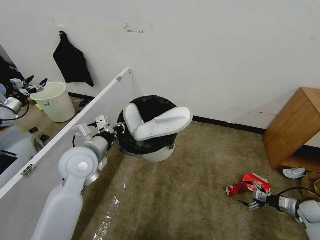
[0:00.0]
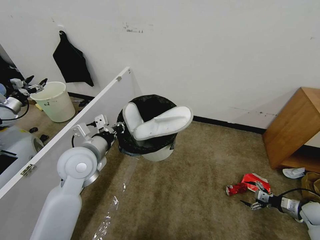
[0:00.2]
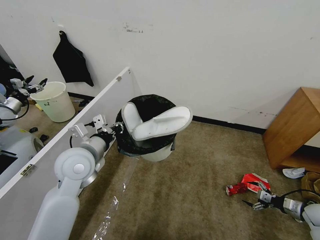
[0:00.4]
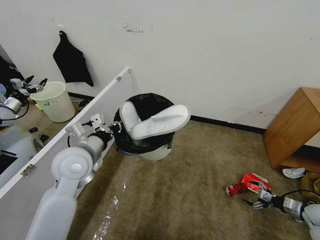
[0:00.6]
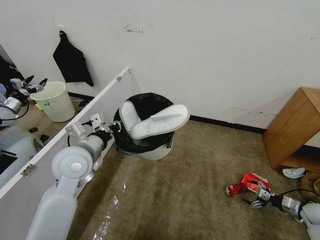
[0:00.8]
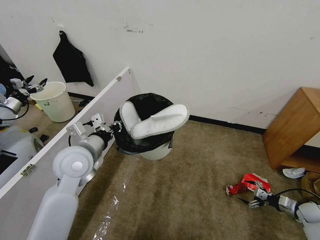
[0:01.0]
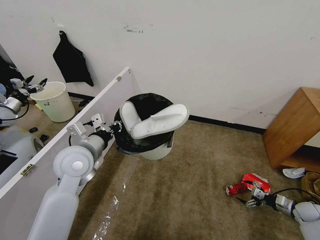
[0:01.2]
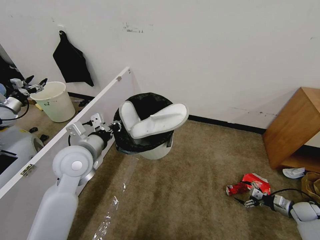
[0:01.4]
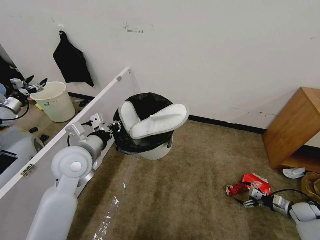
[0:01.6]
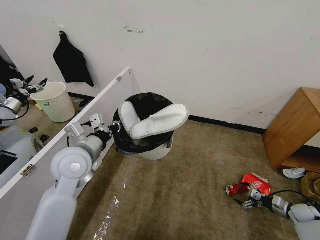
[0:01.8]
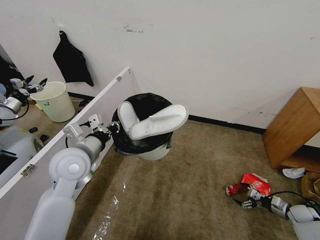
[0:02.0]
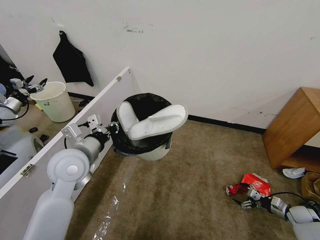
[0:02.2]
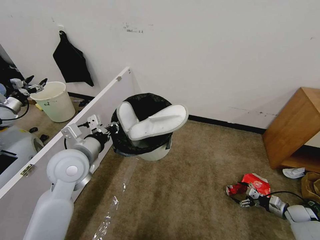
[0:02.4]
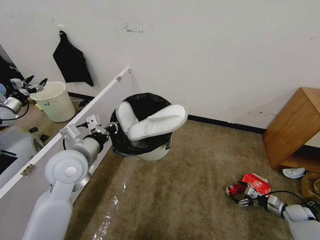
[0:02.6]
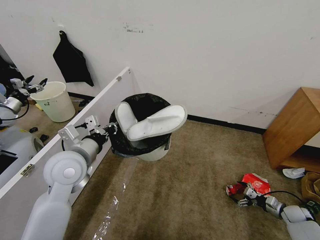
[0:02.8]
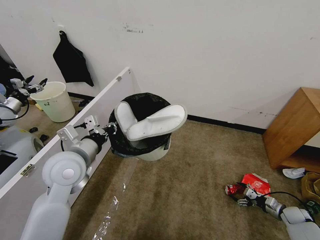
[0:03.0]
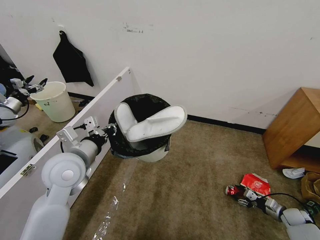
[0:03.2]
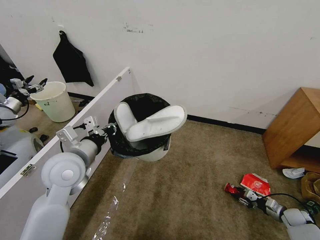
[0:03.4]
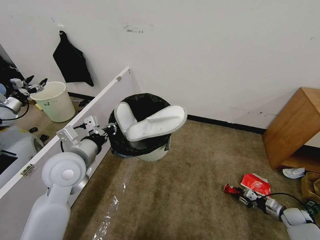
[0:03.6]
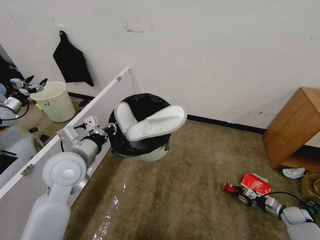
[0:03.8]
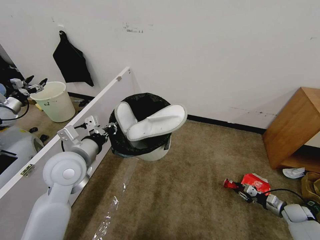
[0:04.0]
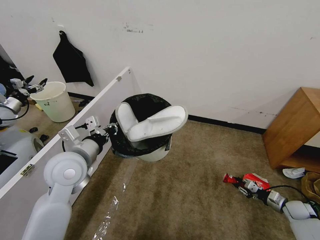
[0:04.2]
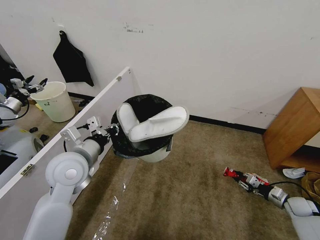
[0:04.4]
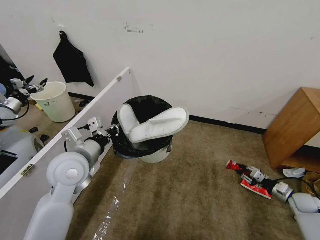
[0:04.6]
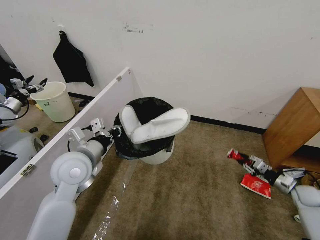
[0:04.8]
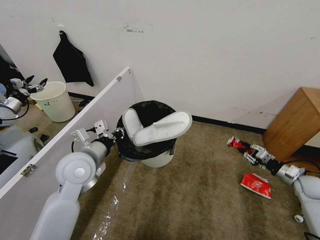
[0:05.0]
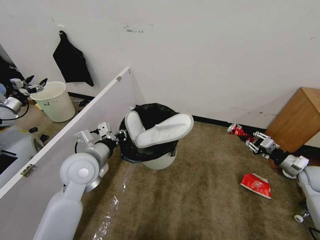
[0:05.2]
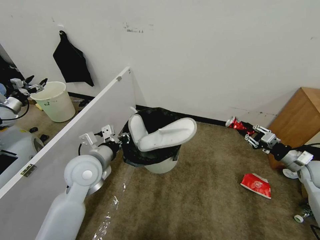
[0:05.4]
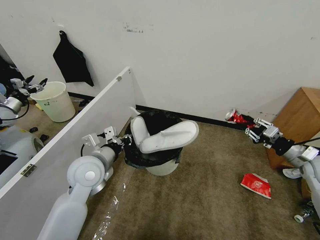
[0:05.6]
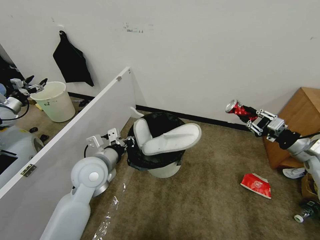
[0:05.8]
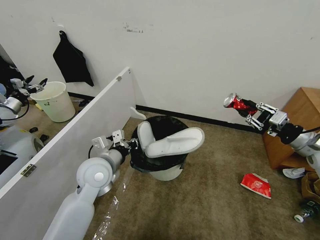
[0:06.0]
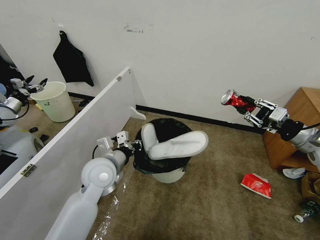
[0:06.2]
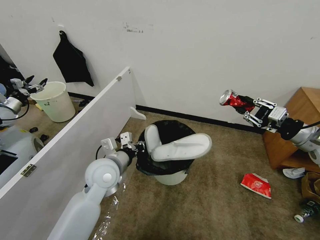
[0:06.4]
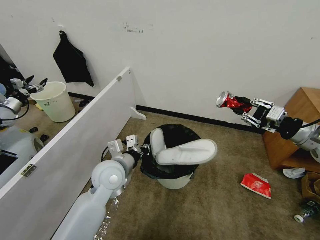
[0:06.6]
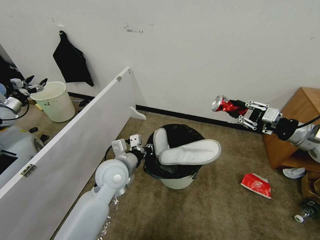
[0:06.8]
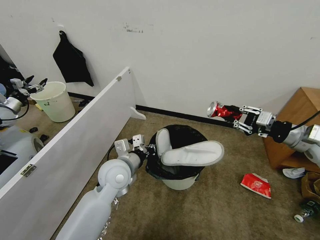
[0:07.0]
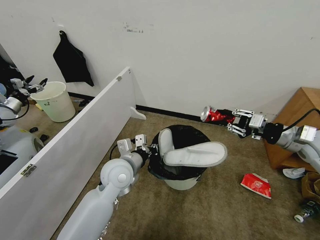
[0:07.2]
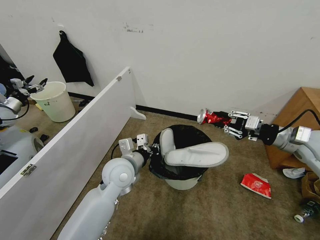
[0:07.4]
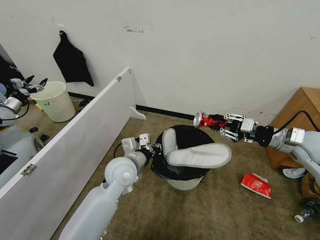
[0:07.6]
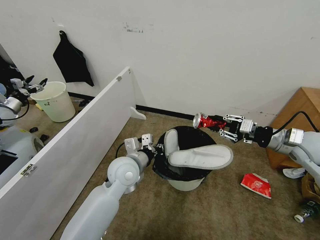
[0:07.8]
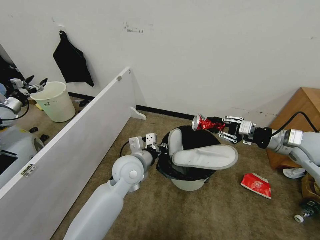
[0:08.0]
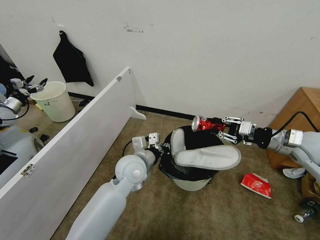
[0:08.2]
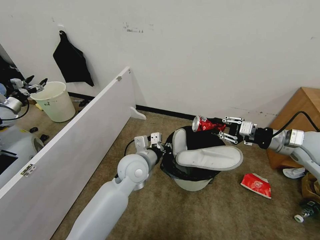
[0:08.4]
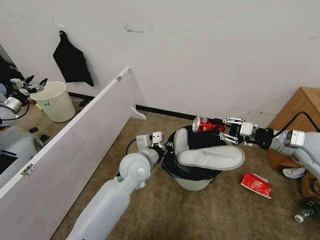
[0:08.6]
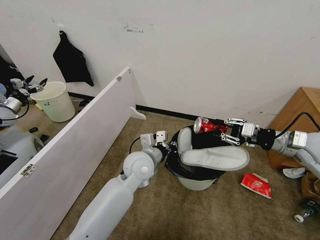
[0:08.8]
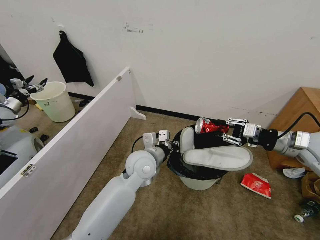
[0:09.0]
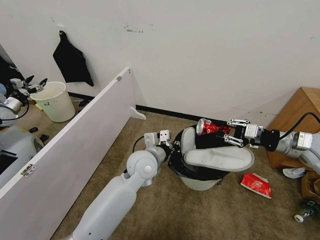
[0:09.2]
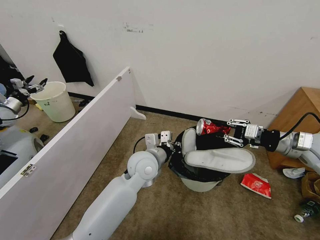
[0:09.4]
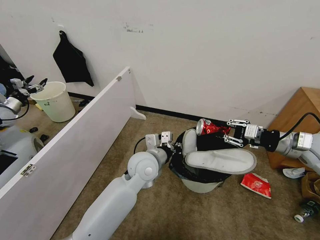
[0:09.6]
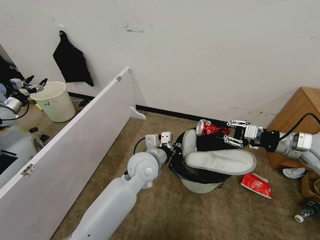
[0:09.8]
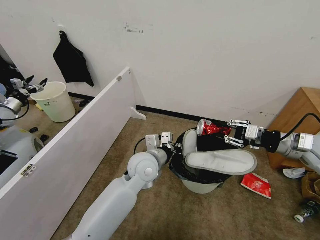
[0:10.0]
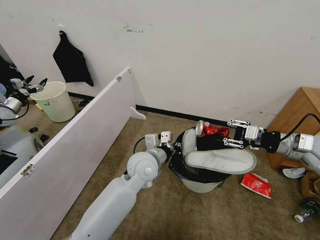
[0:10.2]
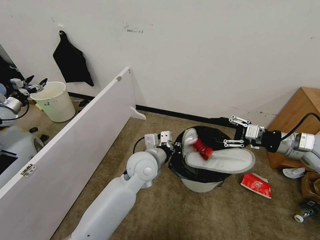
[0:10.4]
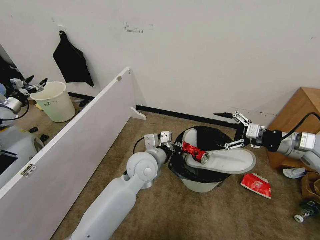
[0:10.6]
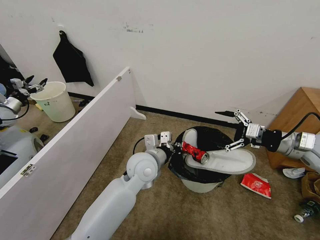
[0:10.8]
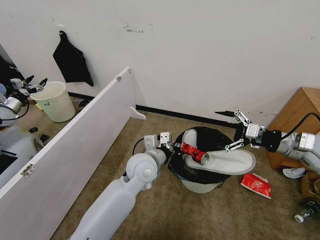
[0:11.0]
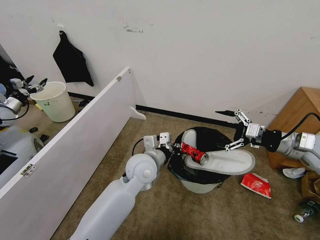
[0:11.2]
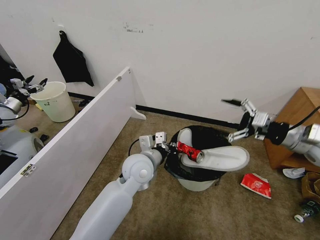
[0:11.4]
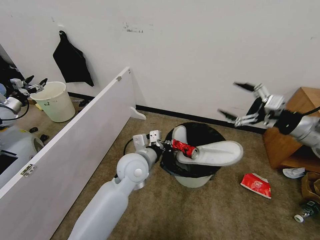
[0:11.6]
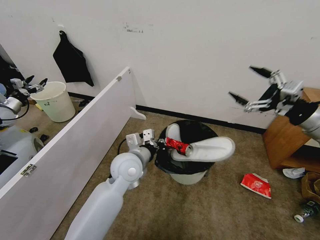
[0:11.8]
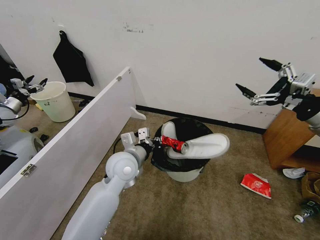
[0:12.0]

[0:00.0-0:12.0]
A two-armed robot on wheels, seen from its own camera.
Task of the whole recording: Pick up the trash bin, then pick up the garbage from the floor and place it into the trash bin.
0:00.0 to 0:01.6: There are only small adjustments of the grippers.
0:01.6 to 0:03.0: The grippers make only small movements.
0:03.0 to 0:04.4: The right gripper is displaced upward by roughly 5 cm, and closes.
0:04.4 to 0:06.0: The left gripper shifts by about 5 cm. Meanwhile the right gripper travels upward by about 30 cm.
0:06.0 to 0:07.6: The left gripper shifts about 5 cm to the right; the right gripper is displaced to the left by approximately 5 cm.
0:07.6 to 0:09.0: The left gripper shifts some 5 cm to the right.
0:09.0 to 0:10.4: The right gripper opens.
0:10.4 to 0:12.0: The right gripper travels upward by some 5 cm, and opens its fingers. Meanwhile the left gripper goes approximately 5 cm to the left.

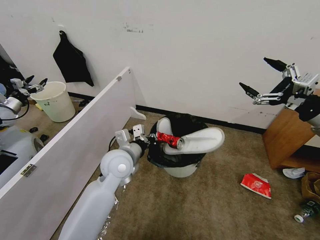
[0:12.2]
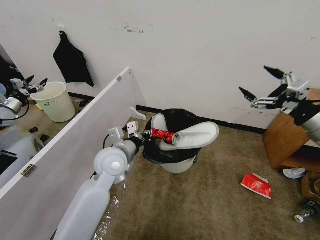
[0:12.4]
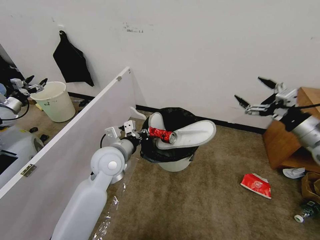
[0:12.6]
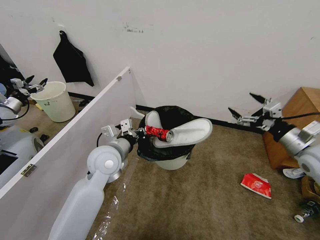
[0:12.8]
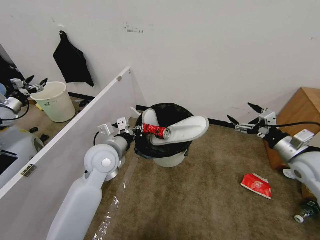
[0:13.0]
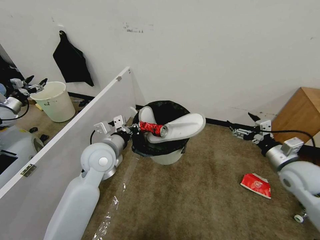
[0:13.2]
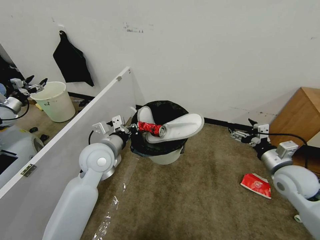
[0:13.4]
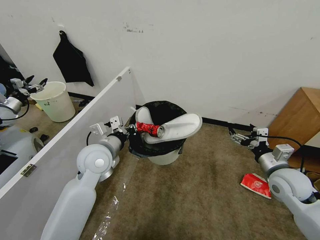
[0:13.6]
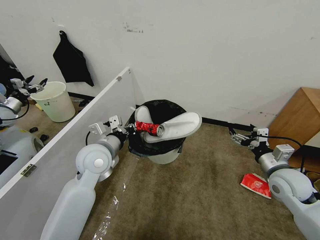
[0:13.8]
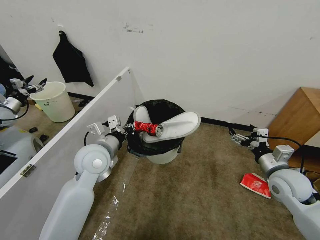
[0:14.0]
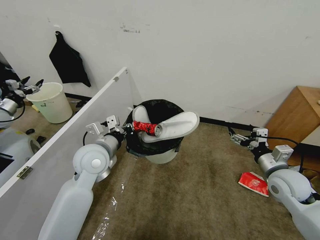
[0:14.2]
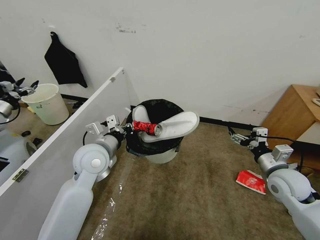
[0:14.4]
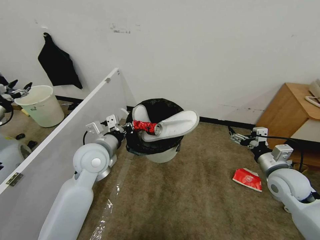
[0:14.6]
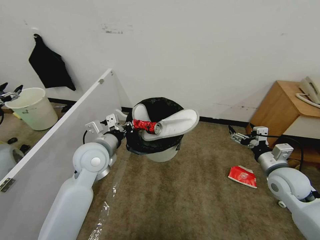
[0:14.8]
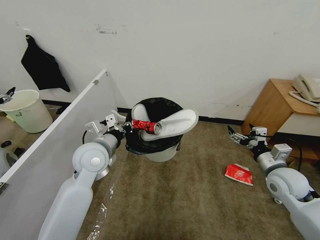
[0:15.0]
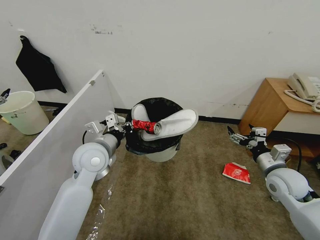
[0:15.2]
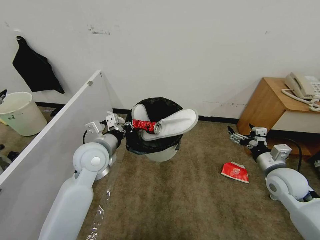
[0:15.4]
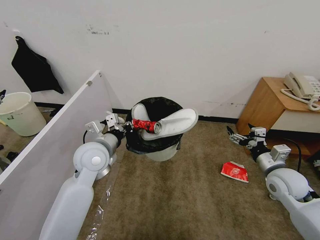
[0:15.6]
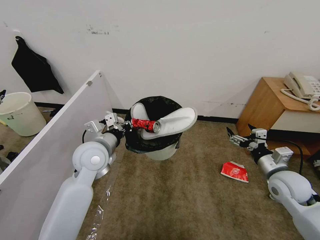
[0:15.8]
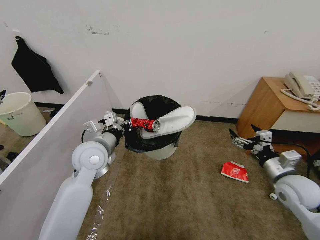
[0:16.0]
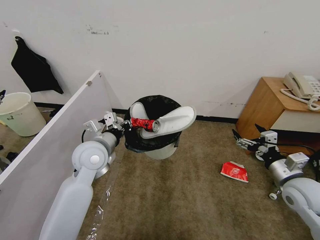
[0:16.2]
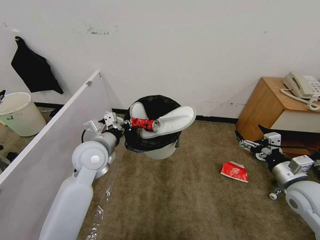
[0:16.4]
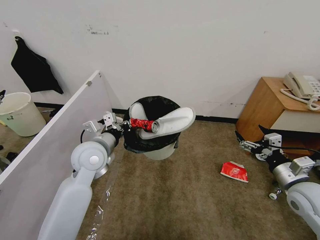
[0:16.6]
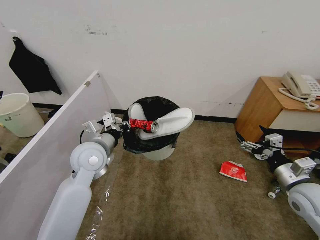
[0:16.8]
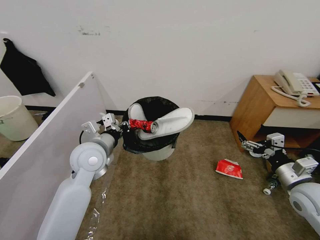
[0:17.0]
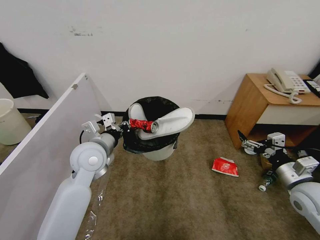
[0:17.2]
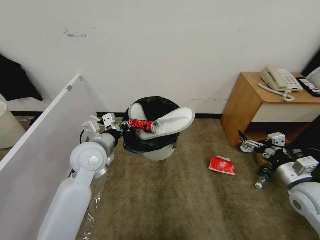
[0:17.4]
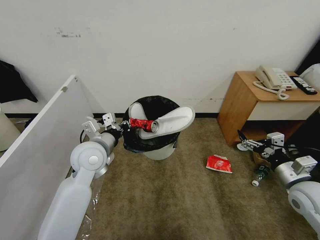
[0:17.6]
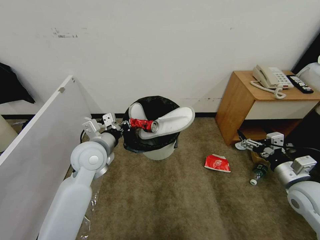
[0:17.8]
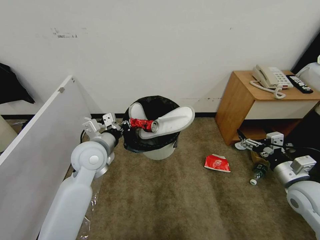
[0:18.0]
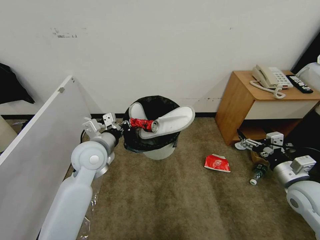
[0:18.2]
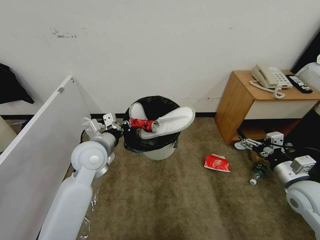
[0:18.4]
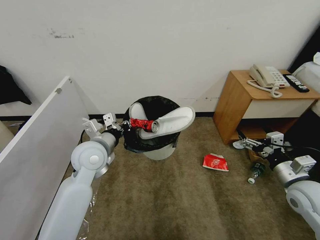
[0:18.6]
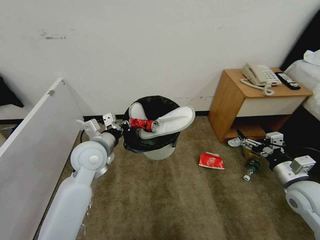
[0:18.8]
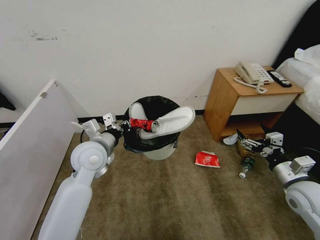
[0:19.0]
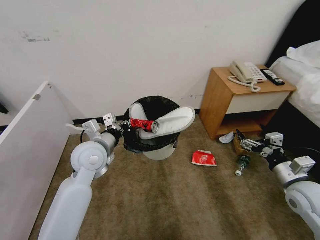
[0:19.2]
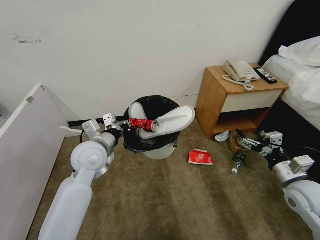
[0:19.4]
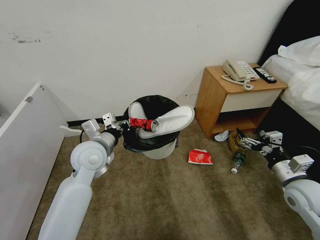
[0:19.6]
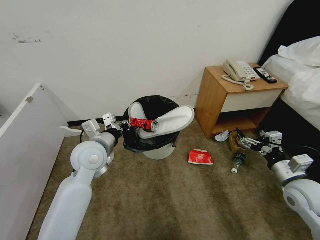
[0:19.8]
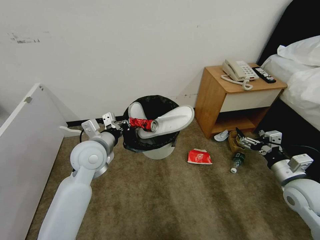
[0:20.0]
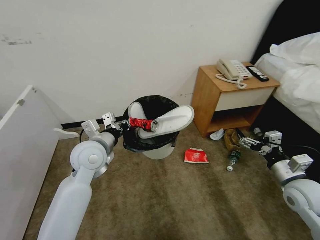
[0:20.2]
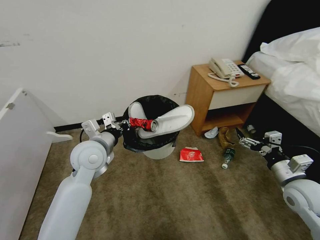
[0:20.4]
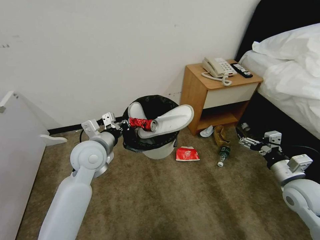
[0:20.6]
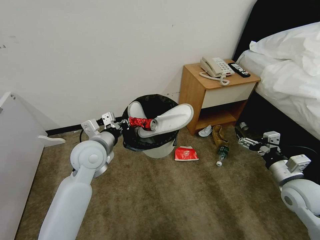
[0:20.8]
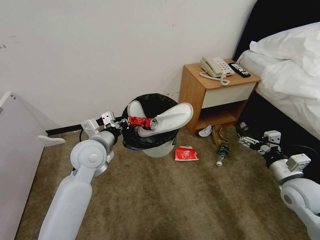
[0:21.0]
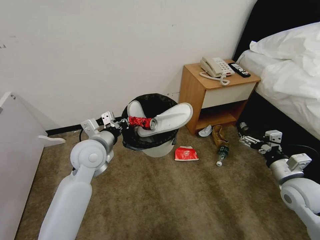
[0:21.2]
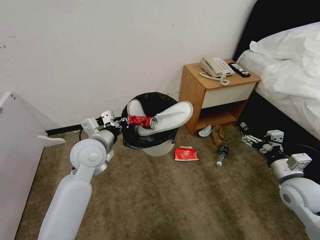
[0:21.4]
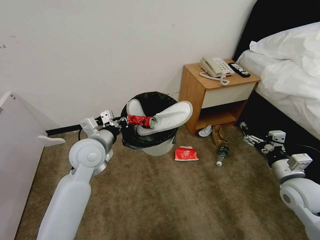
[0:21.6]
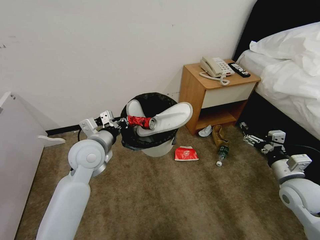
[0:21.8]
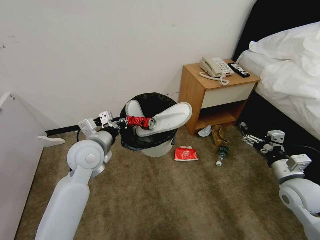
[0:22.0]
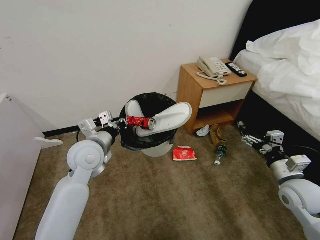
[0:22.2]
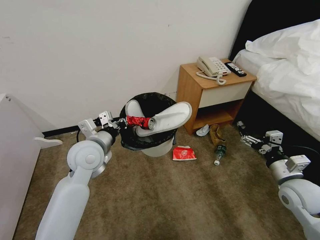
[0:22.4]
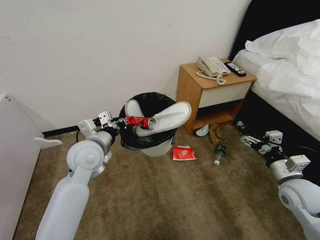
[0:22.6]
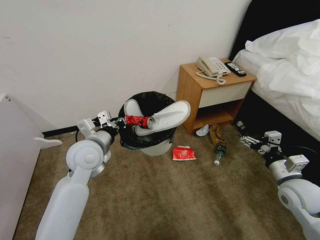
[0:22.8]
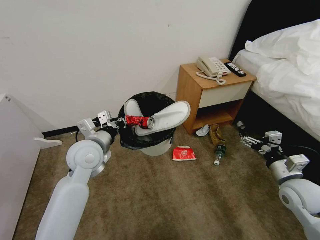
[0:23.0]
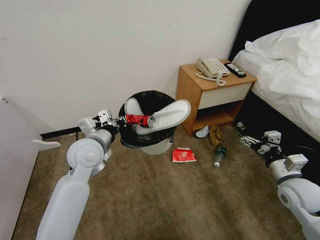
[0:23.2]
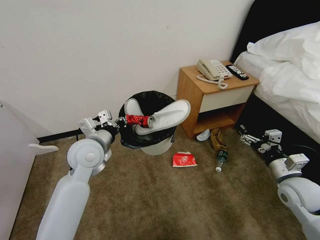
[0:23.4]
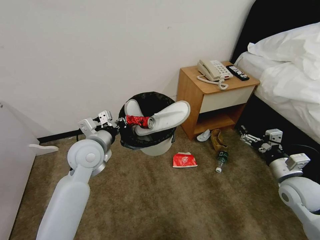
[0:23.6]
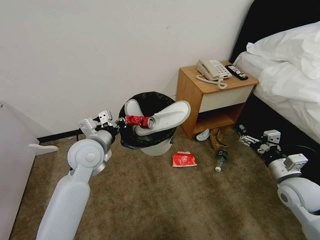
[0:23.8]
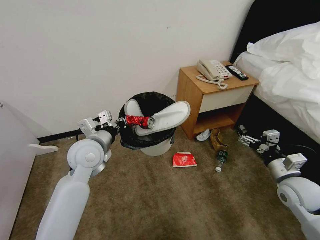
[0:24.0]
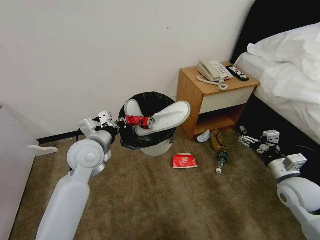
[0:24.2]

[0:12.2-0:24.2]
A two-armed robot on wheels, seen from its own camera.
Task of the whole recording: Pick up the trash bin, then pick up the garbage from the floor and place it into the trash bin.
0:12.2 to 0:13.8: The right gripper heads downward and to the left, covering about 20 cm. The left gripper heads to the left, covering about 5 cm.
0:15.2 to 0:16.6: The right gripper moves backward, about 5 cm.
0:21.2 to 0:22.6: The grippers stay close to where they were, moving slightly.
0:22.6 to 0:24.2: The two grippers keep their place.
